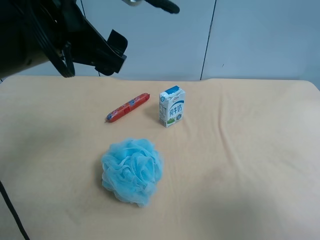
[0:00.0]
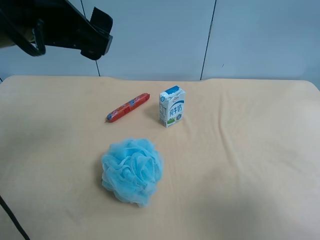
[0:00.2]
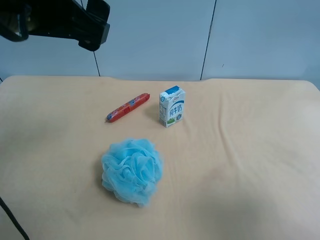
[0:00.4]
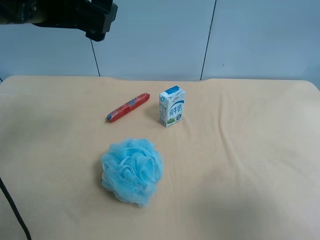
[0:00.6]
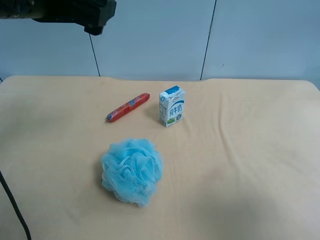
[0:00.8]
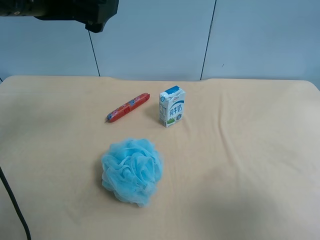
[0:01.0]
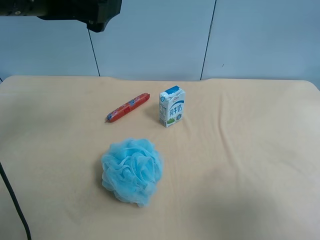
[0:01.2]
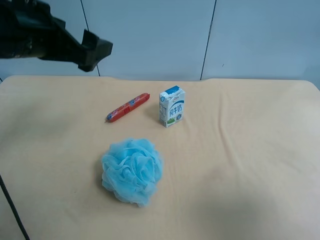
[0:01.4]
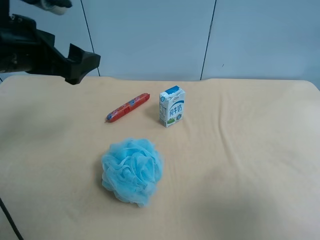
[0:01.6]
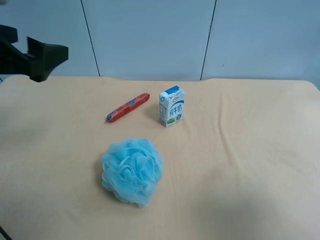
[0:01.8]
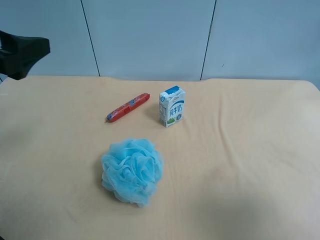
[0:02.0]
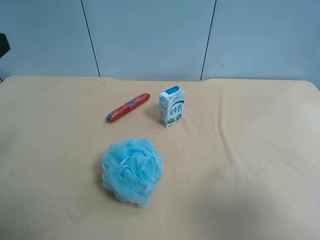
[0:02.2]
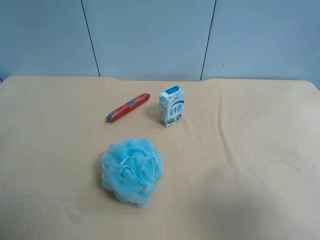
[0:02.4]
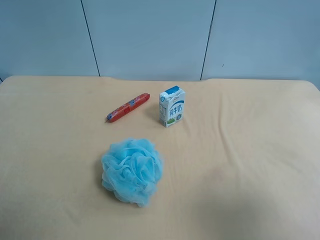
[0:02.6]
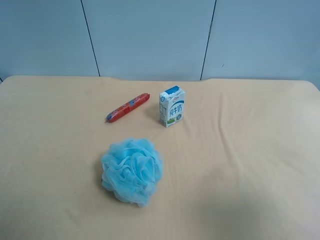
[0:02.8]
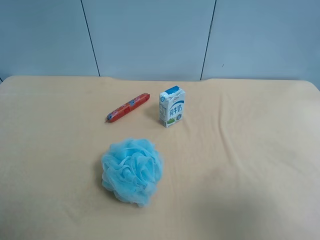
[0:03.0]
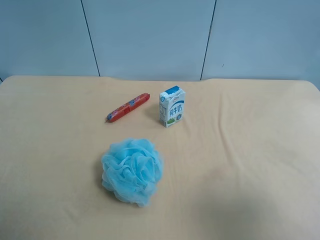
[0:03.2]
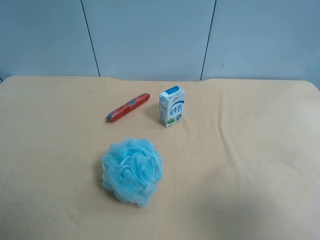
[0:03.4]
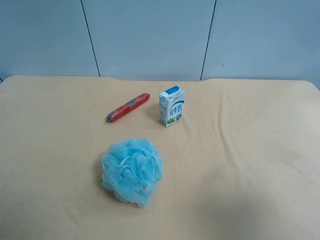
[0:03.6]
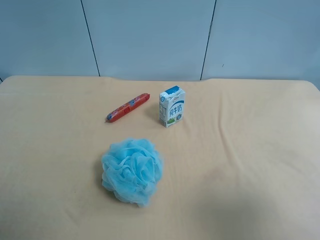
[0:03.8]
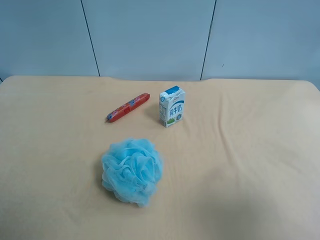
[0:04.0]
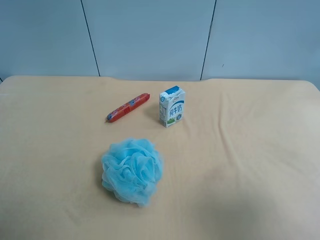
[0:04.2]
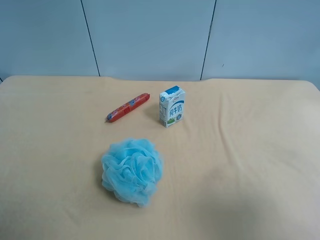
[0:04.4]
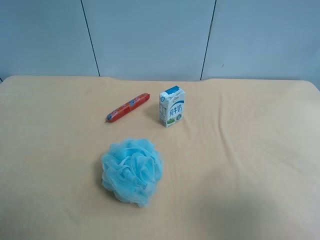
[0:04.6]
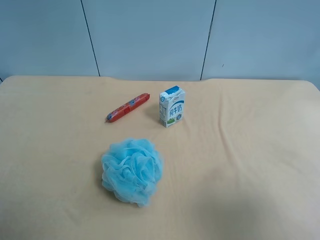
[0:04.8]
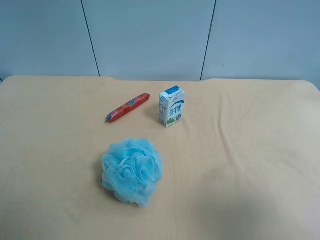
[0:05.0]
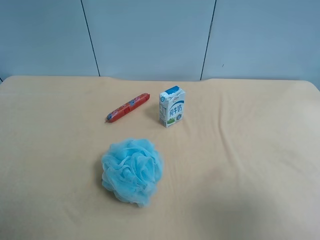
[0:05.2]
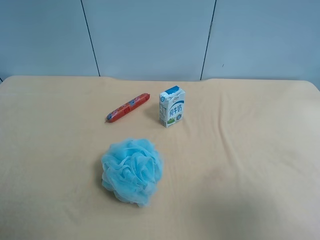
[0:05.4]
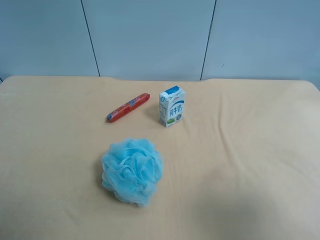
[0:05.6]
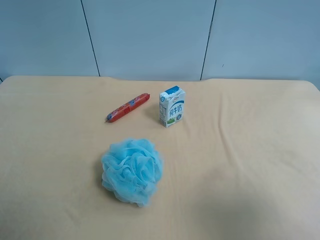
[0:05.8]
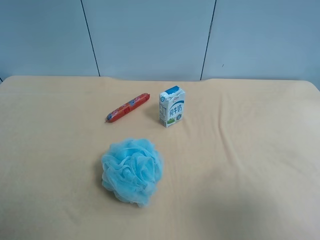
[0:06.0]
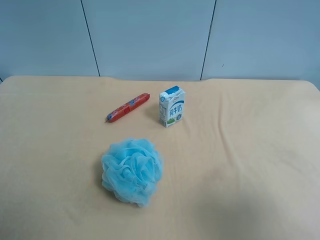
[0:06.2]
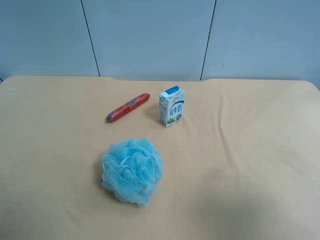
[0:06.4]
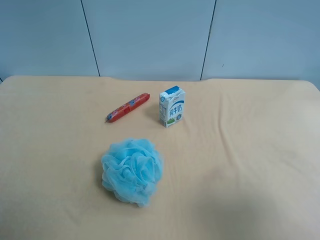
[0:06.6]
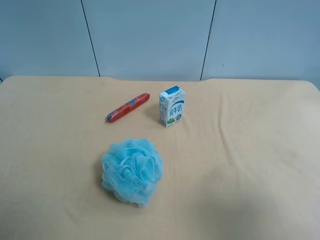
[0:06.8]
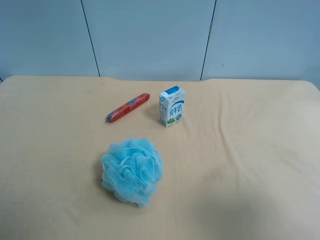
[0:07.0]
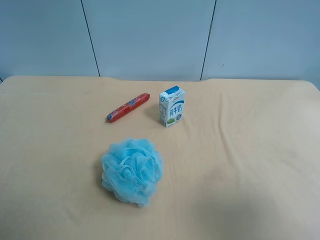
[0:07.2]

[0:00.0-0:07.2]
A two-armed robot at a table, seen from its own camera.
Task of the whole recording: use the right gripper to pick up the item and transfer it from the right gripper to the left gripper.
0:00.0 to 0:01.4: The left gripper moves to the left and forward, about 10 cm.
0:01.4 to 0:02.8: The left gripper moves backward and to the left, roughly 20 cm.
